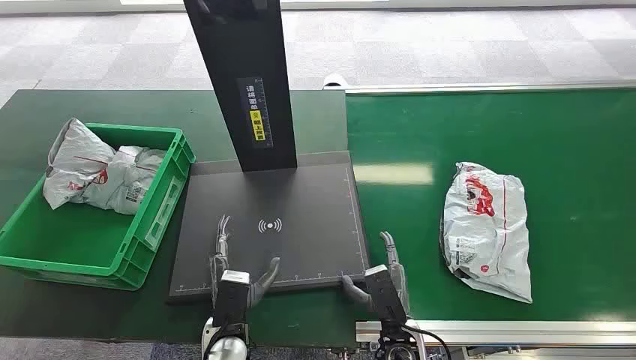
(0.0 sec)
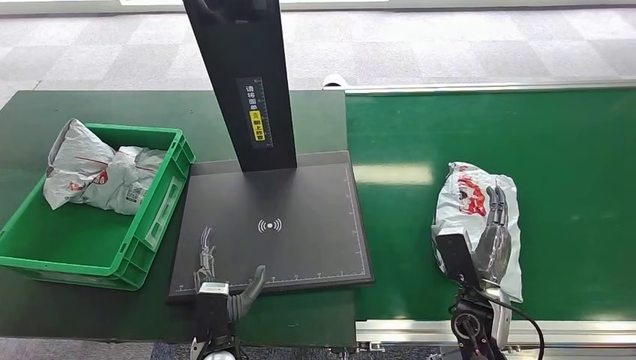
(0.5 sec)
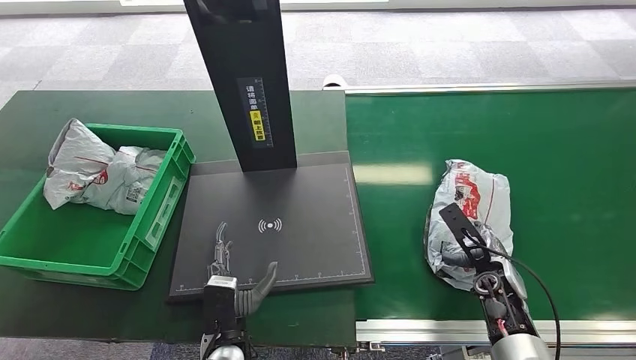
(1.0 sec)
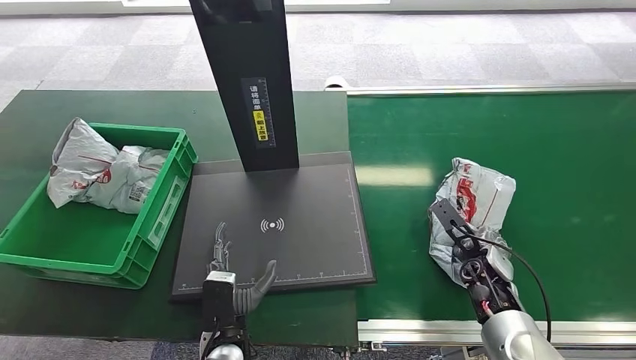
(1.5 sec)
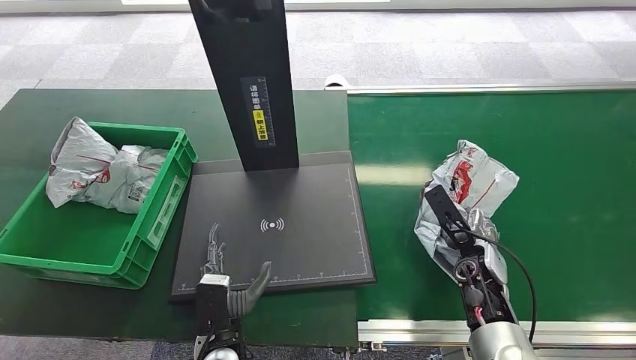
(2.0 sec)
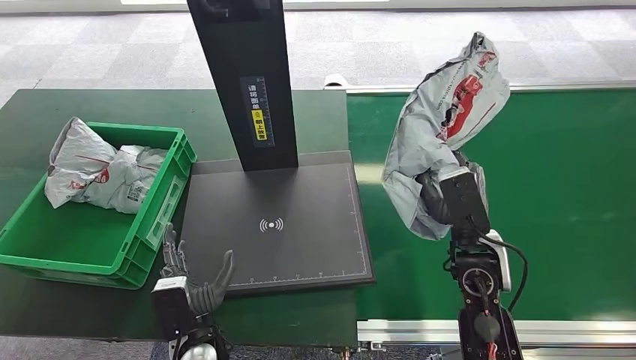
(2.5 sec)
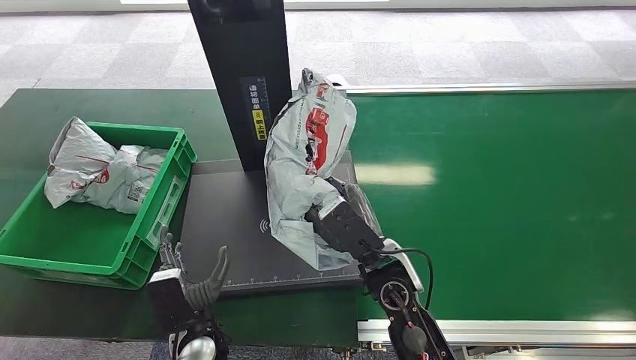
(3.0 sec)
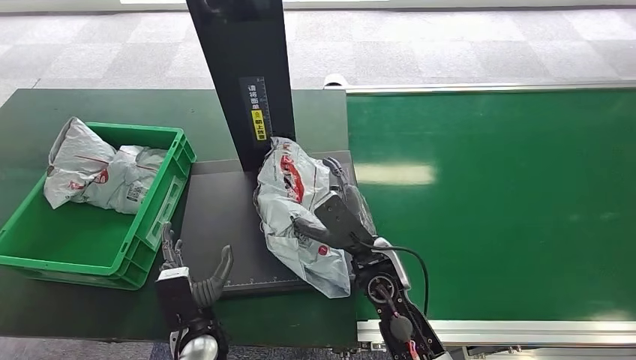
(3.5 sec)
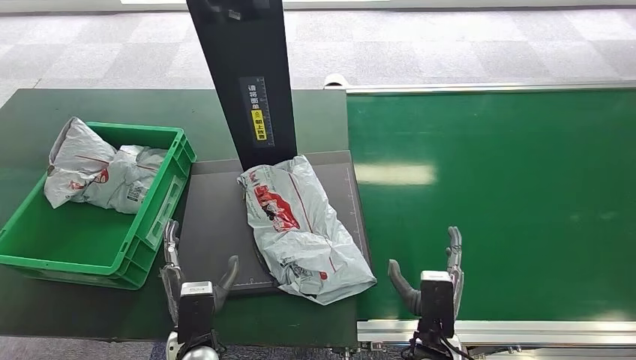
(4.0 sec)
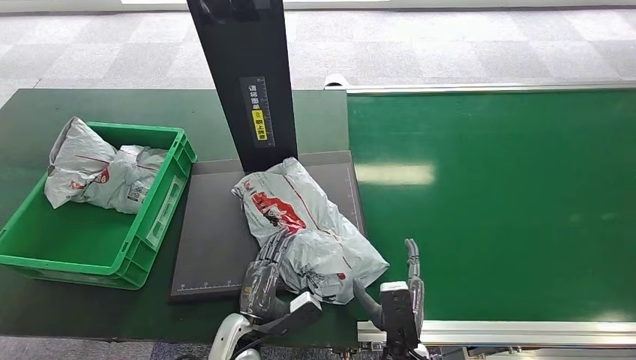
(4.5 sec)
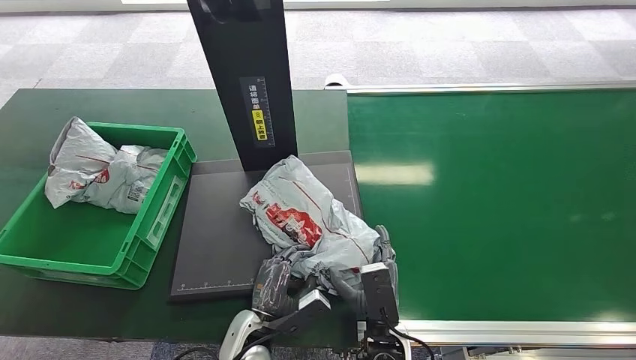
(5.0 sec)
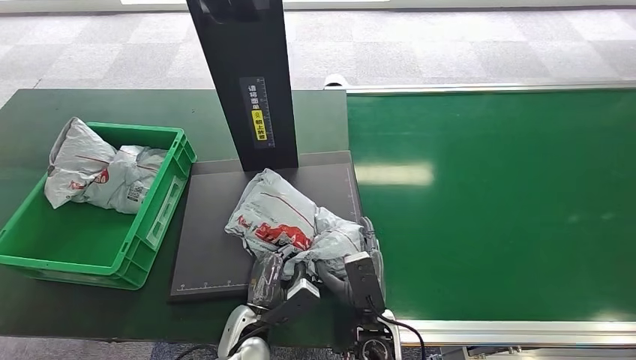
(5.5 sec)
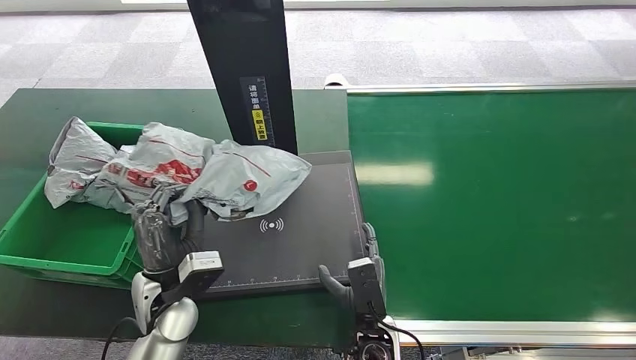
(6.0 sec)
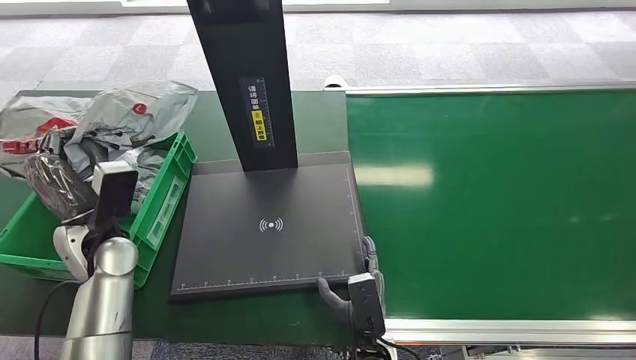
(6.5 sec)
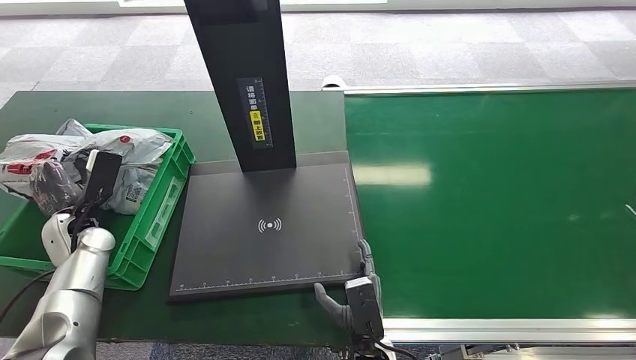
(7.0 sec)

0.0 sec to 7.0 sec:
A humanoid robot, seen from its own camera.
Step, 0.0 sec to 2.5 sec: Pick up the package from the conveyor belt.
Step, 3.0 sec to 4.0 sec: Place the package onto the inbound machine.
Step, 4.5 sec to 6.0 sec: Pick up the package from the inbound machine.
Step, 6.5 sec to 7.0 sec: Place the package into the parcel locker.
2.0 sec to 3.5 sec: The right hand shifts about 20 cm to the left.
3.5 sec to 5.0 sec: The left hand moves roughly 5 cm. The right hand goes some 15 cm backward and downward.

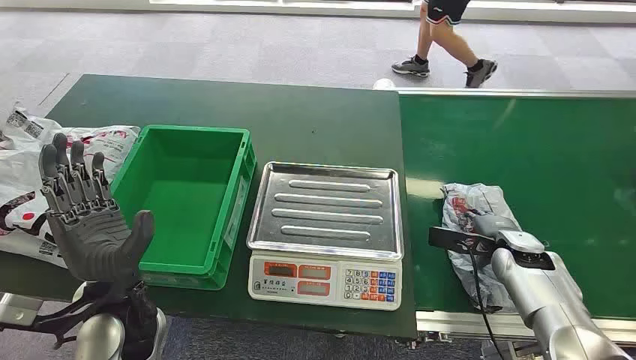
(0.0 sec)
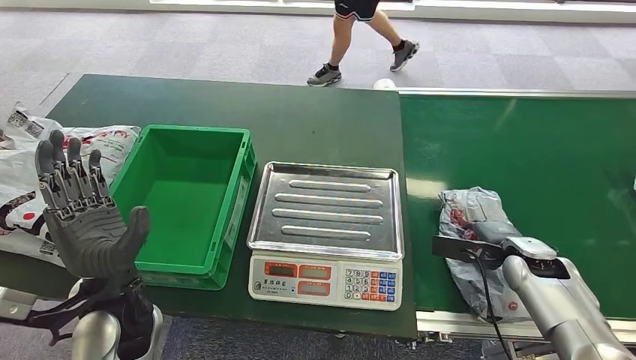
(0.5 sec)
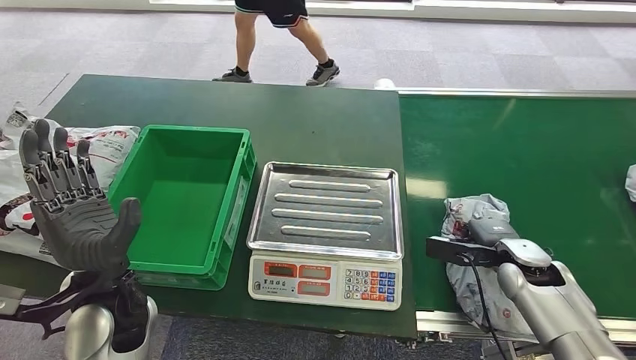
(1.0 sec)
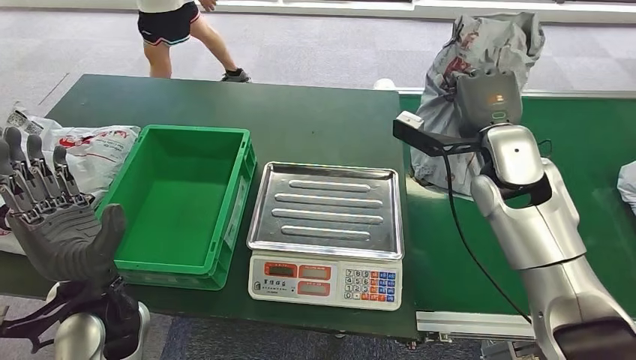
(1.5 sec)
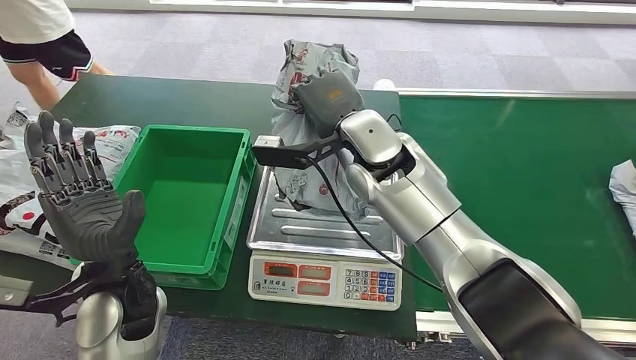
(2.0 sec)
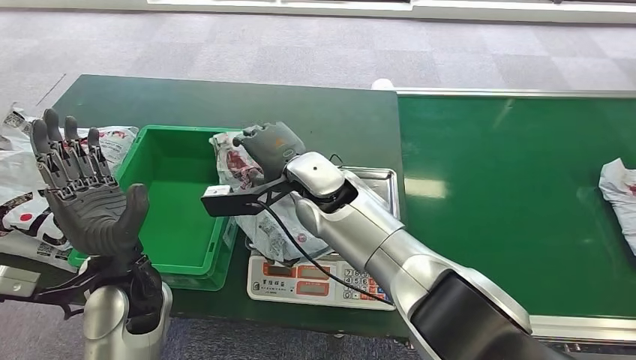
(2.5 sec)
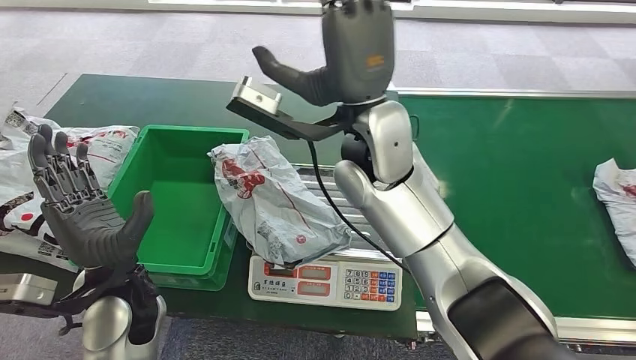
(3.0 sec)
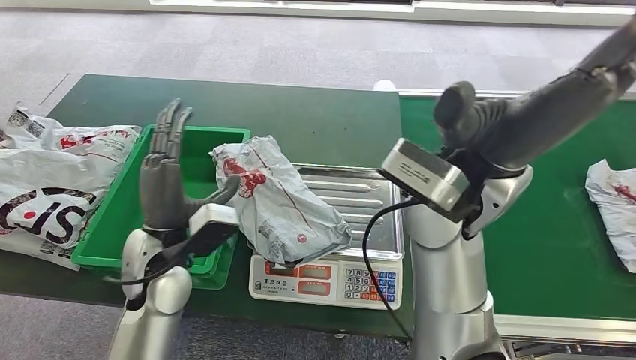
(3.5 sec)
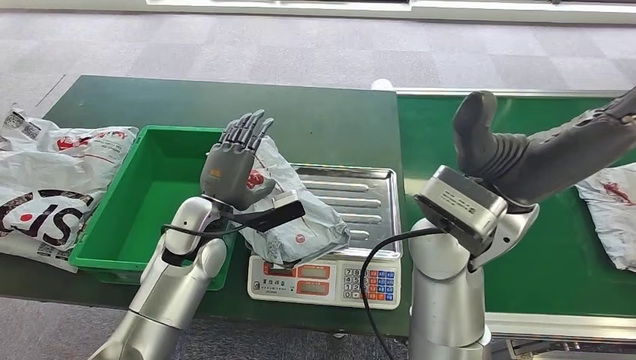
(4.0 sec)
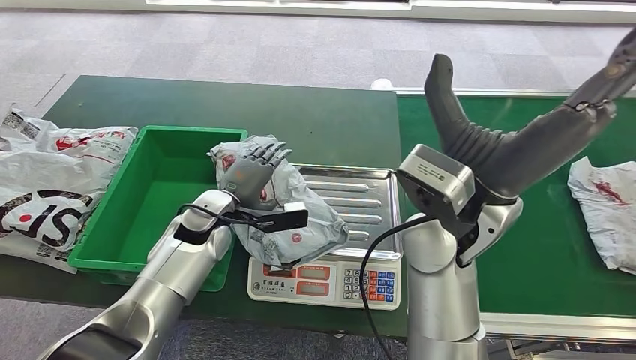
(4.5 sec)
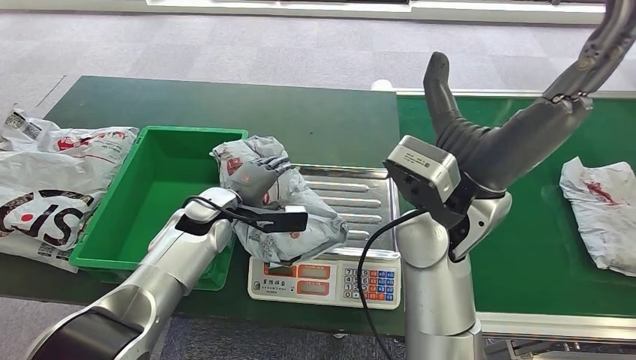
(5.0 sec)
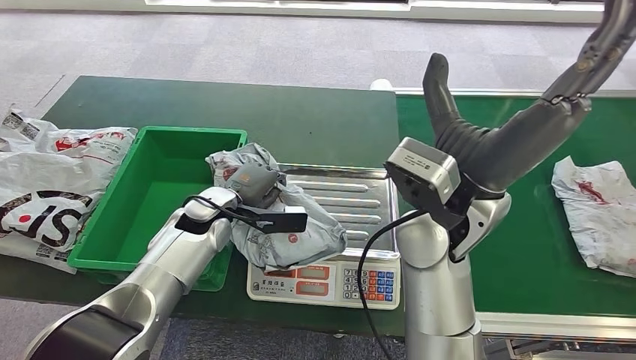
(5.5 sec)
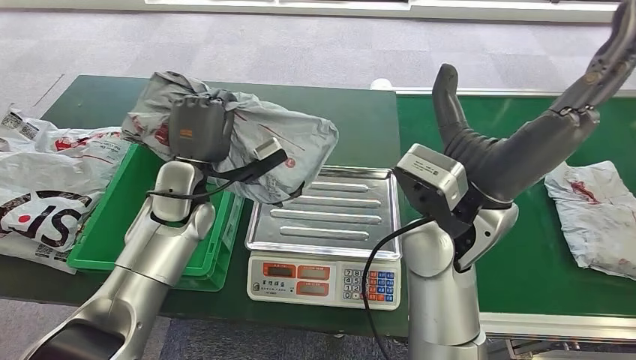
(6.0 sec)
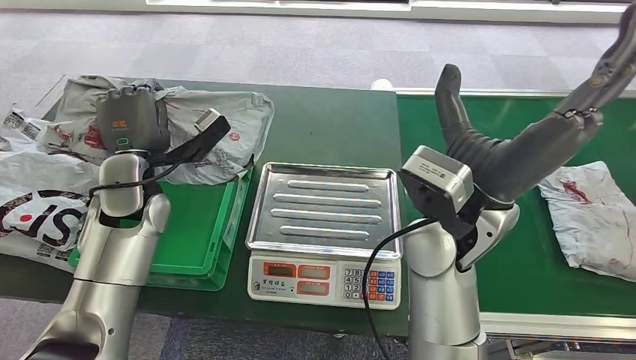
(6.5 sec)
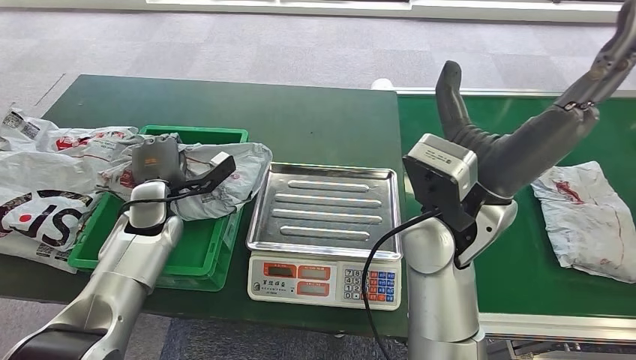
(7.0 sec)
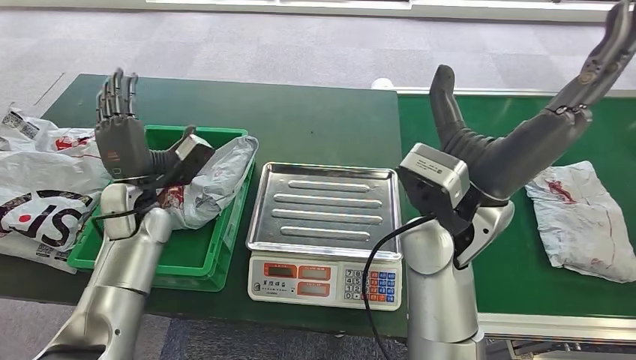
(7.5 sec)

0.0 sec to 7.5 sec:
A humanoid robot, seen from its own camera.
Step, 0.0 sec to 2.0 sec: Pick up the package from the conveyor belt.
Step, 2.5 sec to 3.0 sec: Place the package onto the inbound machine.
Step, 4.0 sec to 6.0 sec: Pick up the package from the inbound machine.
Step, 6.5 sec to 7.5 sec: Place the package into the parcel locker.
